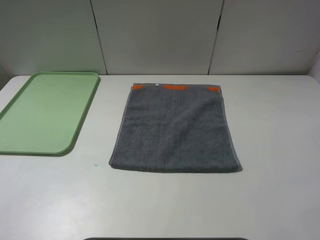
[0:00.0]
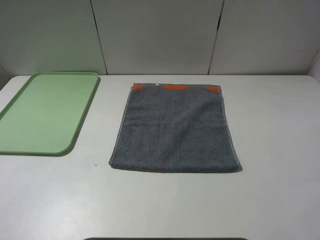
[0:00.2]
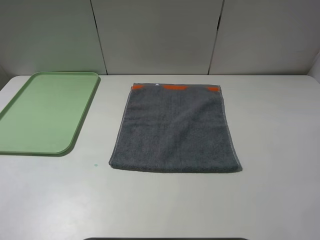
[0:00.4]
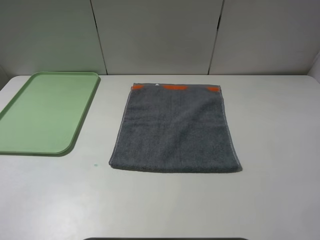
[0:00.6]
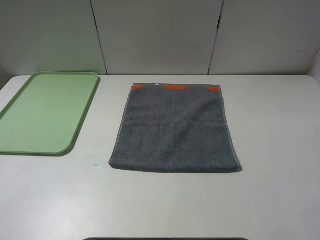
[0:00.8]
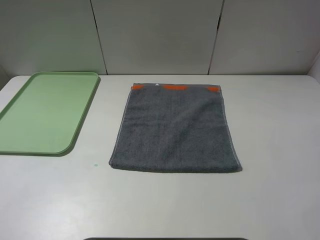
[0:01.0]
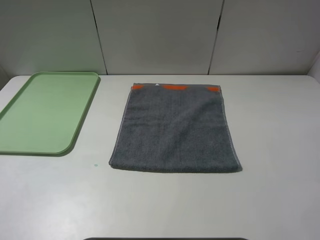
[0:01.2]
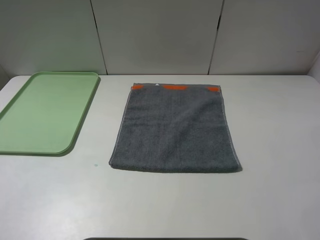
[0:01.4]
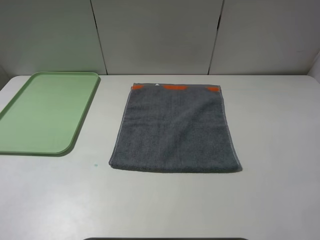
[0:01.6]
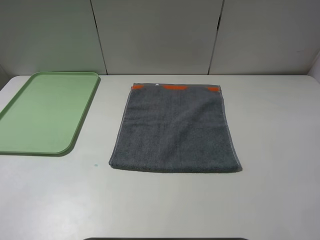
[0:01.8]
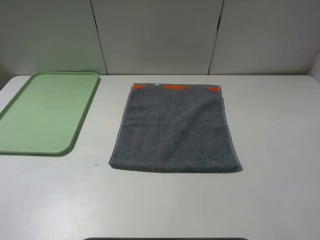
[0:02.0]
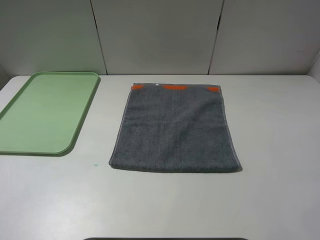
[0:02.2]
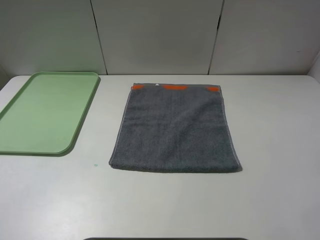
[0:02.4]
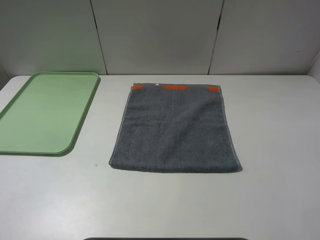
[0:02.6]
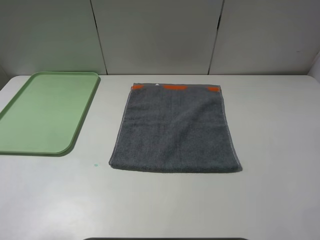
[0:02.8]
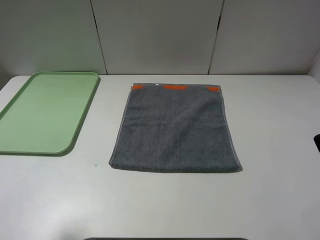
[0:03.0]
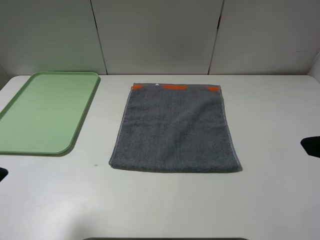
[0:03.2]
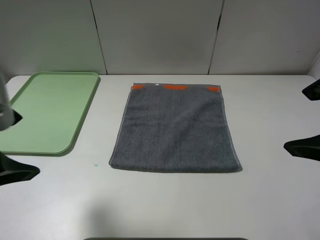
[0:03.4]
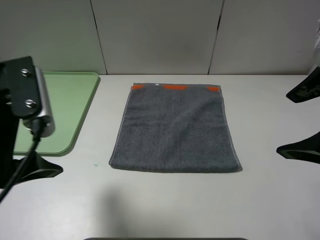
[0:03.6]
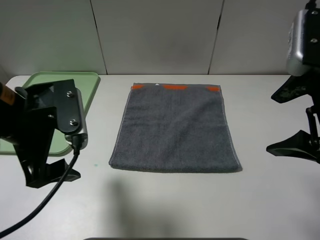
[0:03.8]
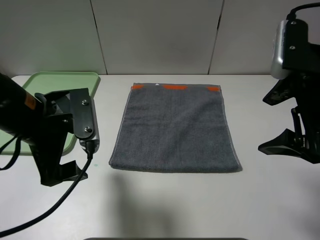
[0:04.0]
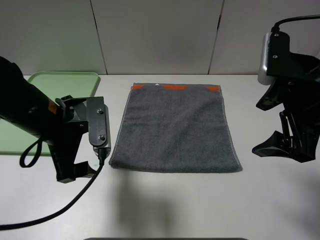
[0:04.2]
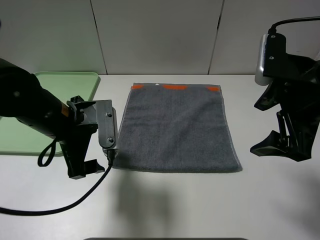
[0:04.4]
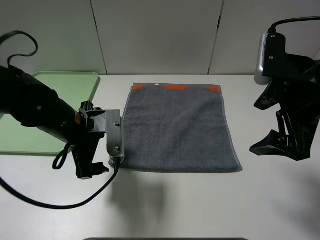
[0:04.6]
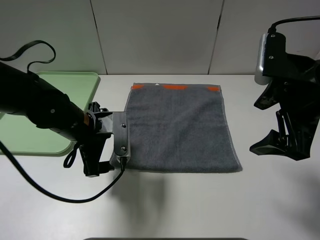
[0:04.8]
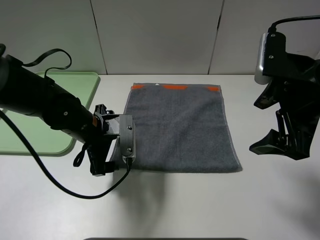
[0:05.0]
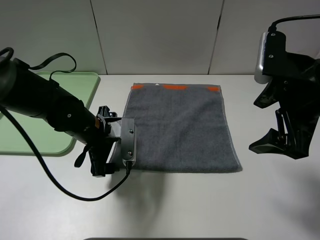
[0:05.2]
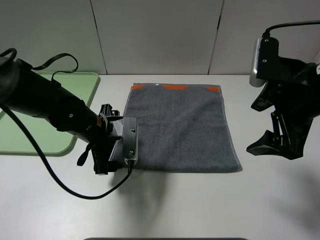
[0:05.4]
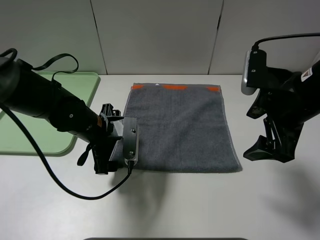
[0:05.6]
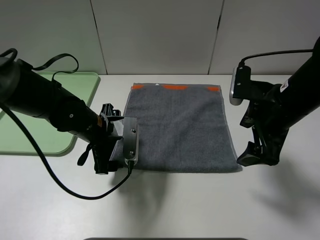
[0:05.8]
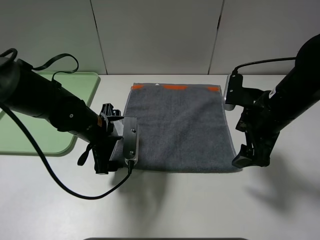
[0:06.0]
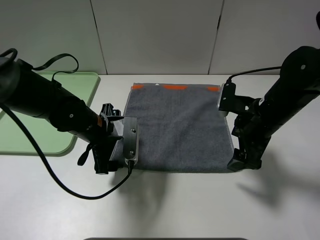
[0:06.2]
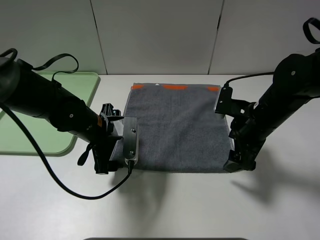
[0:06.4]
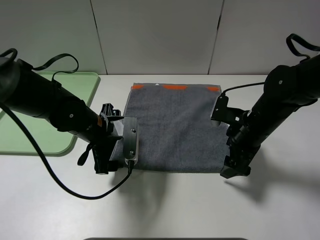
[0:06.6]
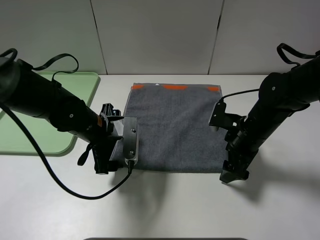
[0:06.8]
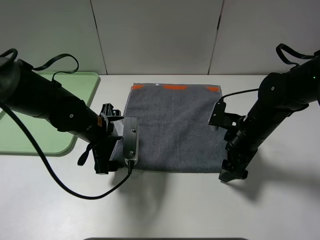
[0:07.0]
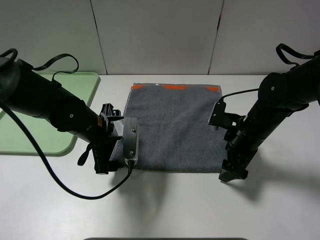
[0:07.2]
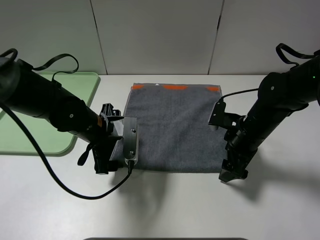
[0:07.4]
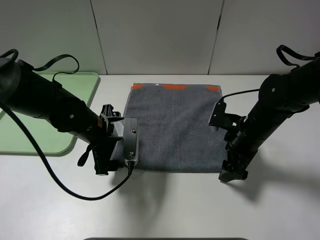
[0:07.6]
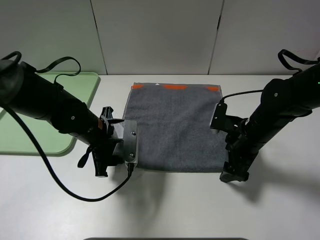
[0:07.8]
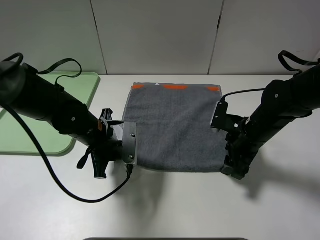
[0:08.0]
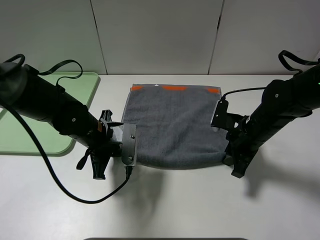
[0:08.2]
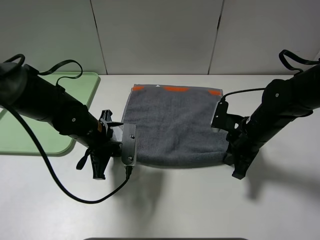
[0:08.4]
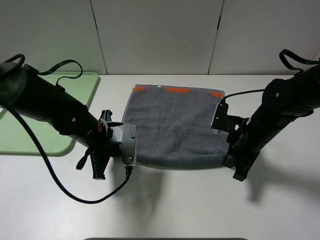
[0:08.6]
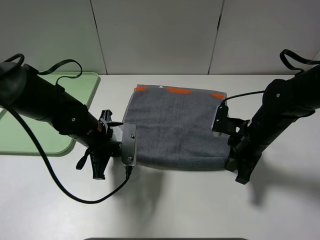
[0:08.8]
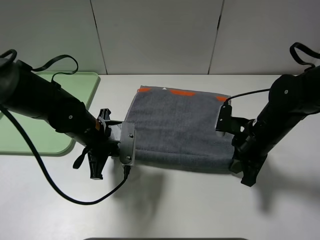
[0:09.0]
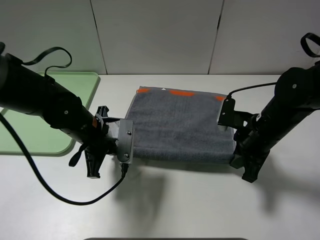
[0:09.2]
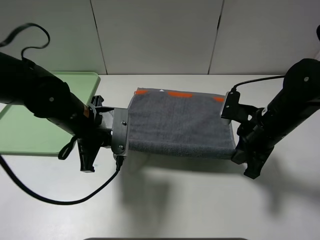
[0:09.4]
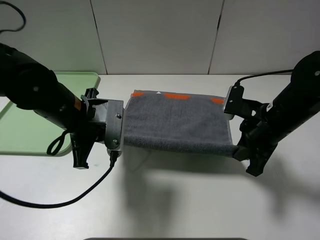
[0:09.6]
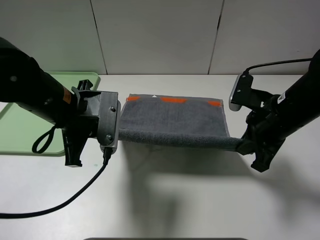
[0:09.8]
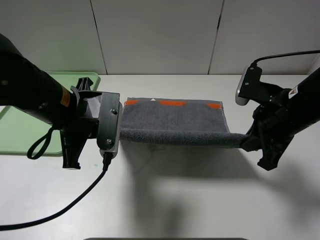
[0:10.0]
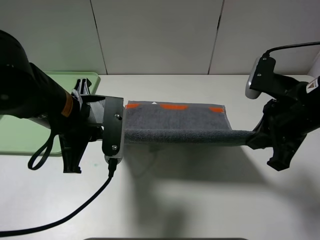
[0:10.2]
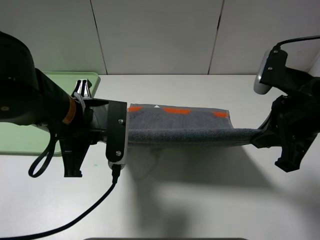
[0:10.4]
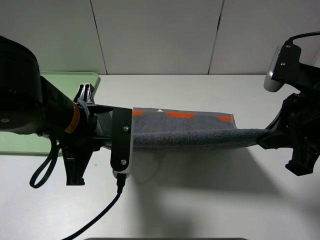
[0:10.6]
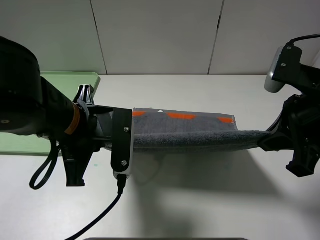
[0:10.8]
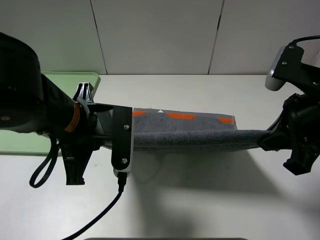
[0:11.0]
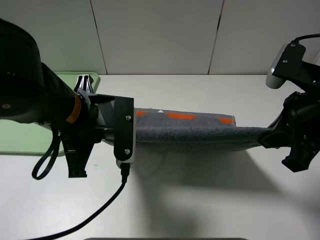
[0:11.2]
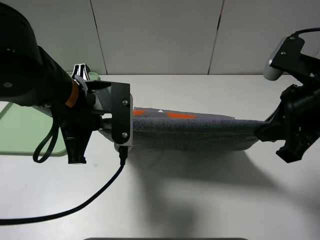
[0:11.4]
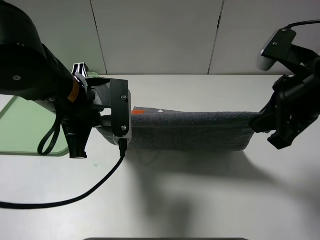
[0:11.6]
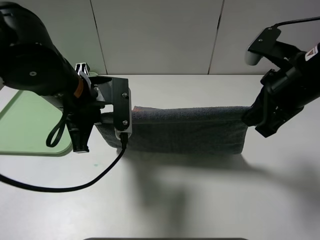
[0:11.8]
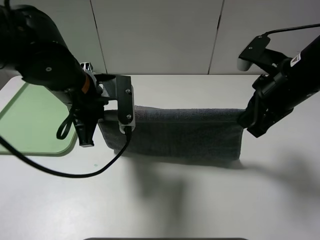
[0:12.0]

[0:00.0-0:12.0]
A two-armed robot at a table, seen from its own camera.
0:00.0 to 0:01.6: The two grippers keep their place.
0:03.0 to 0:04.4: The left gripper shifts approximately 25 cm downward, forward and to the right. The right gripper travels forward and downward by approximately 15 cm.
0:04.4 to 0:06.0: The two grippers go approximately 5 cm downward.
0:06.0 to 0:07.6: The right gripper heads downward, covering some 10 cm.
0:07.6 to 0:09.0: The left gripper closes up; the right gripper closes.
0:09.0 to 0:10.4: The two grippers go some 15 cm upward and backward.
0:10.4 to 0:12.0: Both grippers move forward, approximately 5 cm.

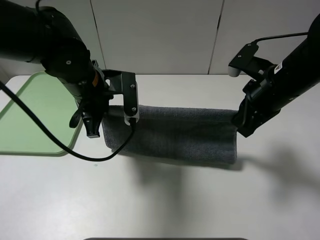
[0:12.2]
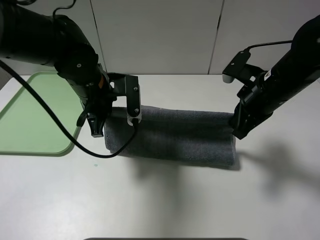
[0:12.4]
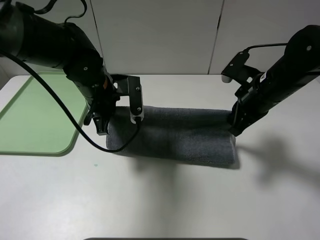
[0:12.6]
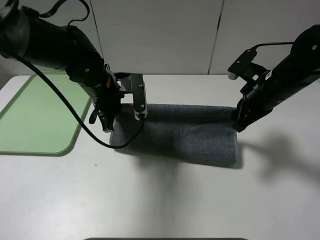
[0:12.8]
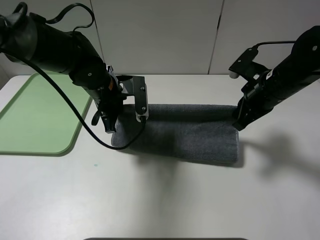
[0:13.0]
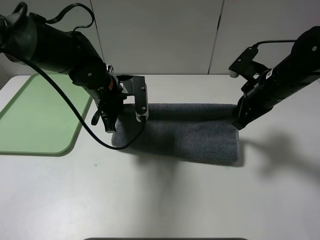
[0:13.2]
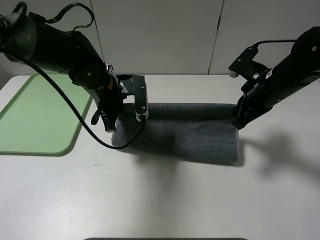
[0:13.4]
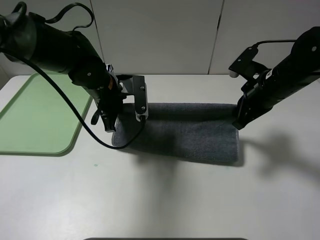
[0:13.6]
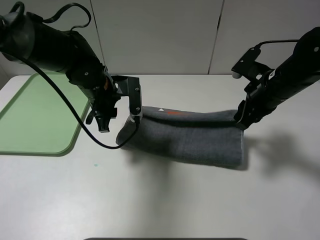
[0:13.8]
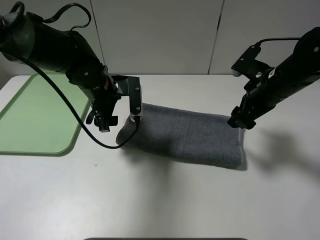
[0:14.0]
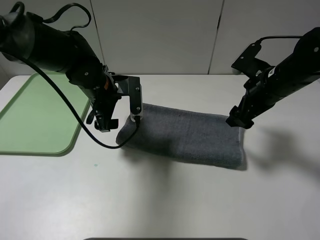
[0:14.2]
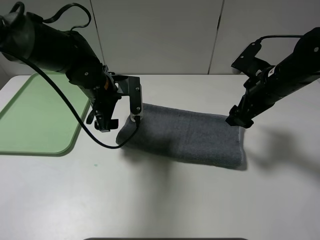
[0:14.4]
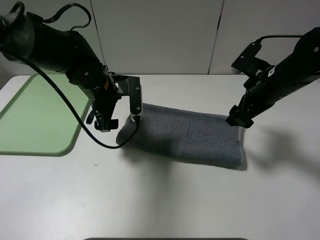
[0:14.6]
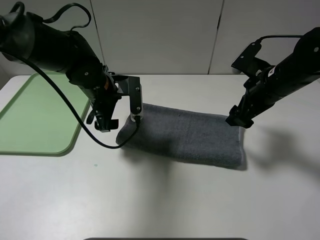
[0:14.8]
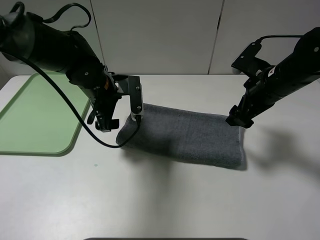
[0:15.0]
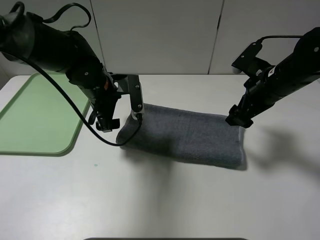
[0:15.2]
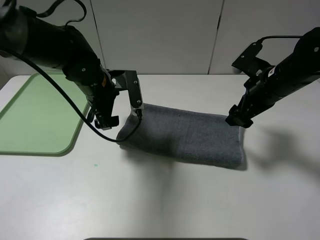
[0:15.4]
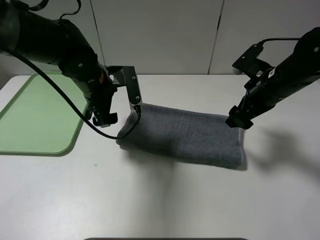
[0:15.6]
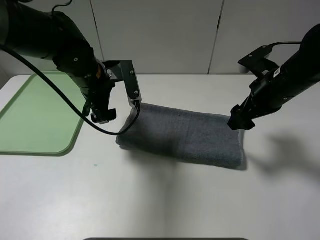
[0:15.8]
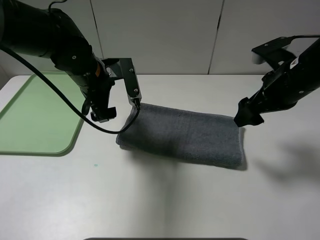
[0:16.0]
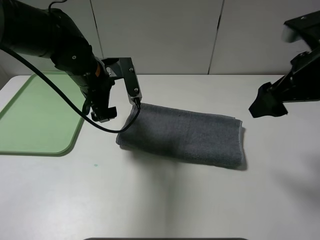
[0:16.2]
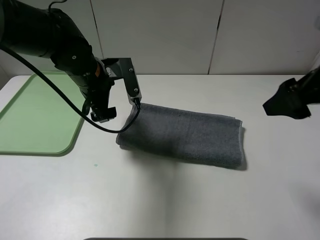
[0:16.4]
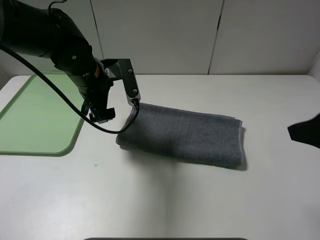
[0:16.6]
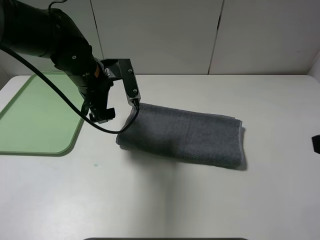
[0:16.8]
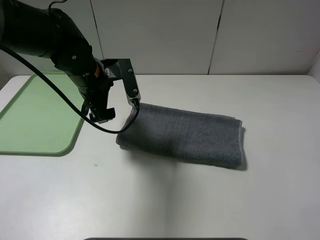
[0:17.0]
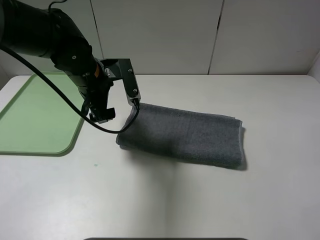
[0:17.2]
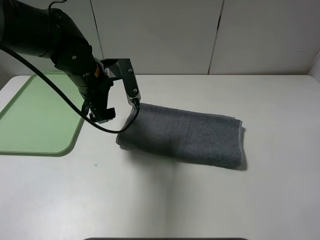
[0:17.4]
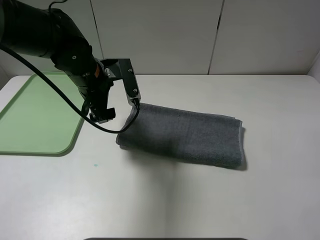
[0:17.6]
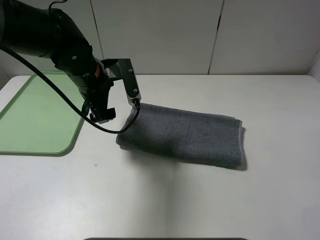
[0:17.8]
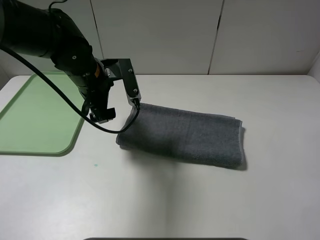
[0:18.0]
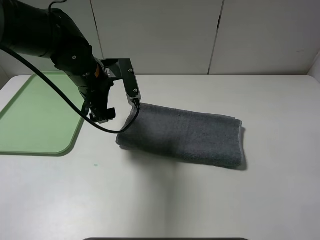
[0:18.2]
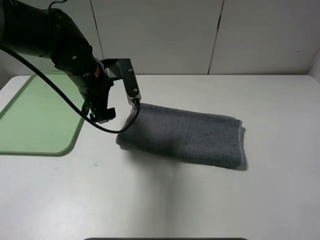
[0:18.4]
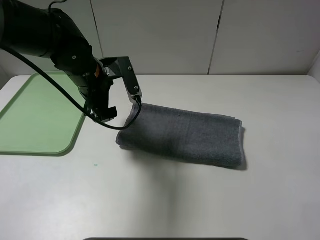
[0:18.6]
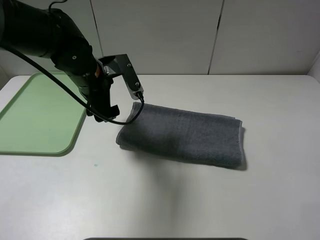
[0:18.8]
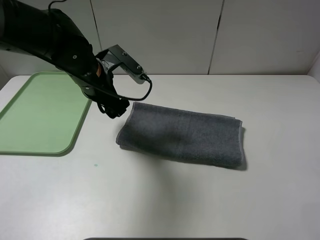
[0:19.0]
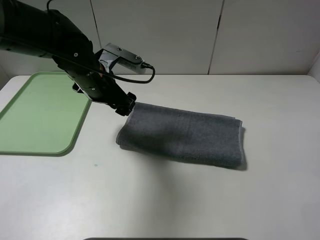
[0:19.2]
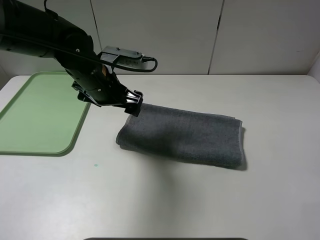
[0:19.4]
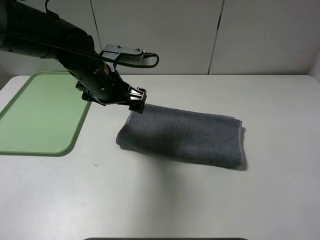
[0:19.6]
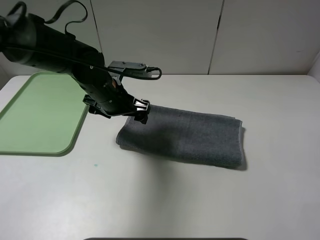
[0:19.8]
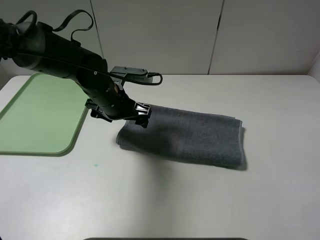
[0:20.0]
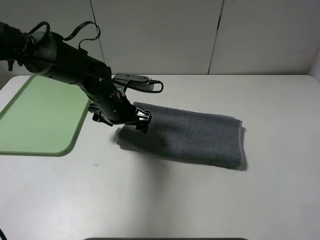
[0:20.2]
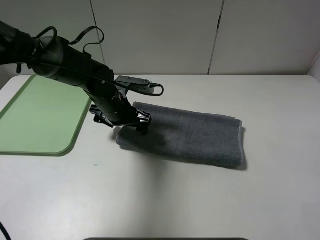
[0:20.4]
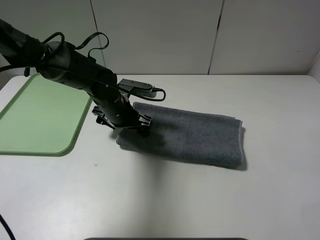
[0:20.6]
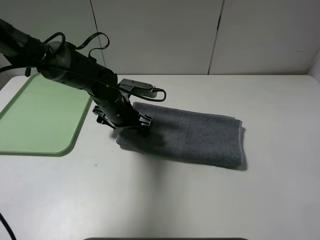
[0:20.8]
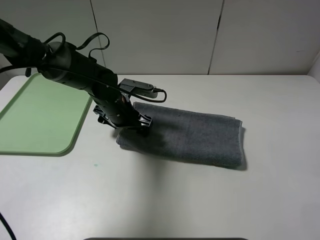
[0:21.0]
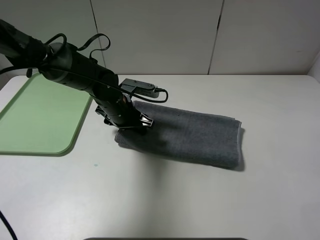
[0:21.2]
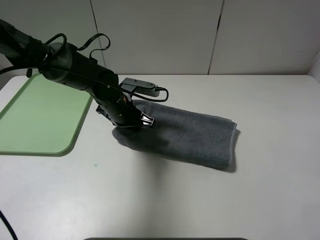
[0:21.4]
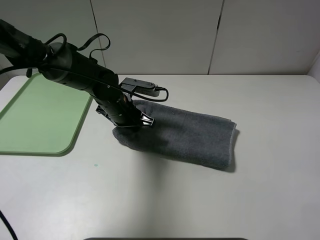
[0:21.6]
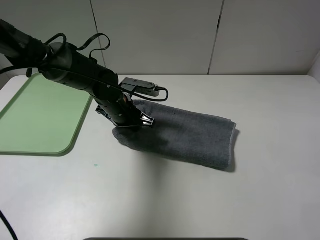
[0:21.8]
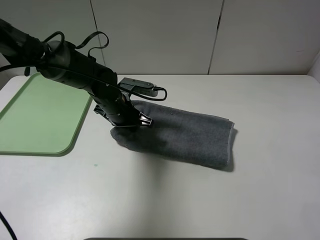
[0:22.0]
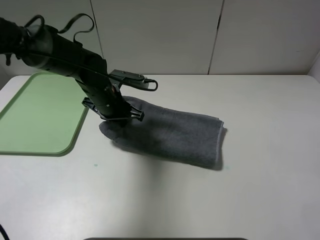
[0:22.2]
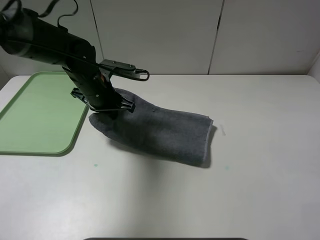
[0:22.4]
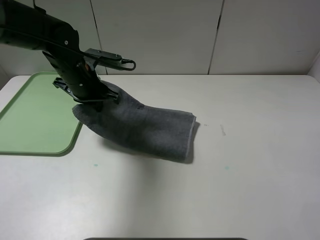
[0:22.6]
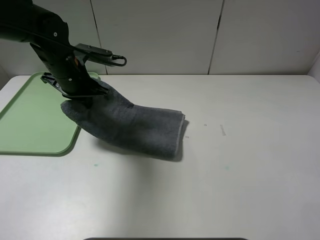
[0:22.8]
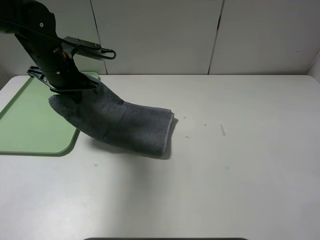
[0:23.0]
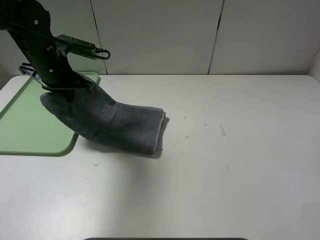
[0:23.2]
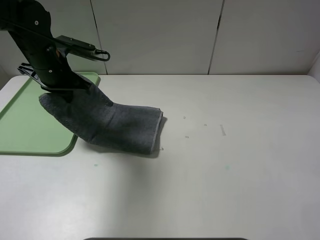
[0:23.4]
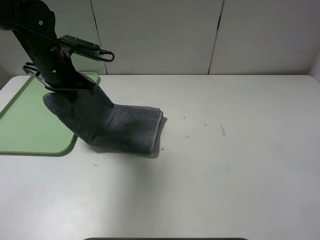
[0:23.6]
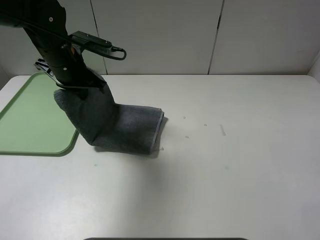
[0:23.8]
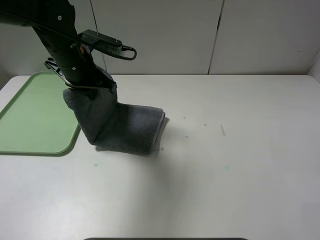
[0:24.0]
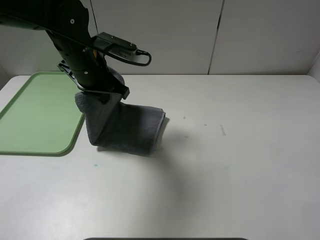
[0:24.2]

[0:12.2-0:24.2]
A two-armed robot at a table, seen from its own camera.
0:12.2 to 0:13.8: The right gripper changes place by approximately 5 cm, and opens up. The left gripper ends up approximately 5 cm from where it was, and opens.
0:13.8 to 0:15.2: The left gripper opens its fingers. The right gripper opens its fingers.
0:15.2 to 0:16.6: The right gripper travels backward and upward by roughly 25 cm.
0:16.6 to 0:18.2: The right gripper is displaced backward by some 10 cm.
0:19.8 to 0:21.2: The left gripper goes approximately 5 cm downward, and closes up.
0:21.2 to 0:22.6: The left gripper is displaced upward and to the left by about 10 cm, and closes up.
0:22.6 to 0:24.2: The left gripper moves approximately 5 cm.
